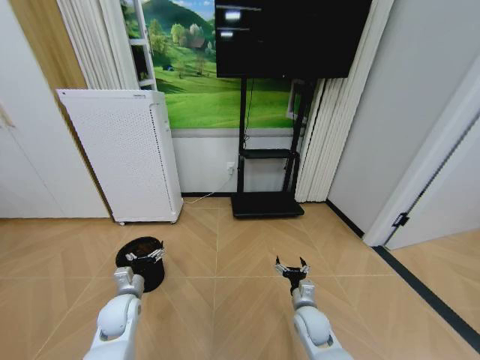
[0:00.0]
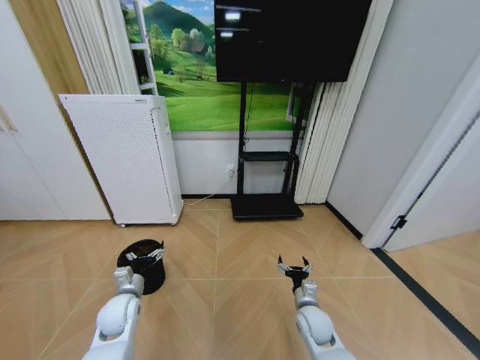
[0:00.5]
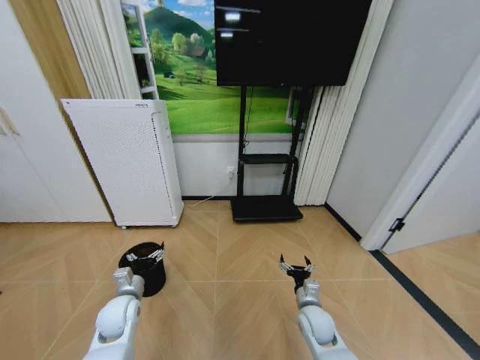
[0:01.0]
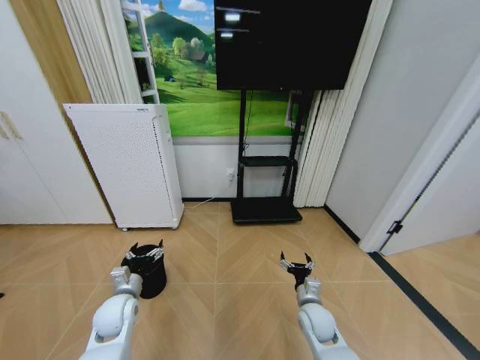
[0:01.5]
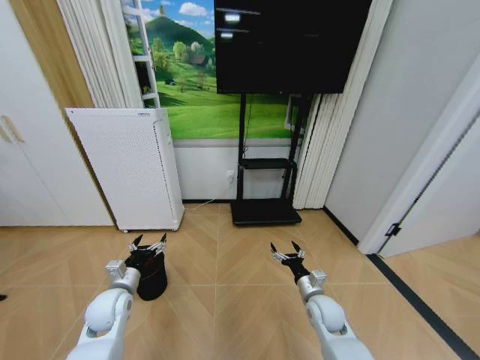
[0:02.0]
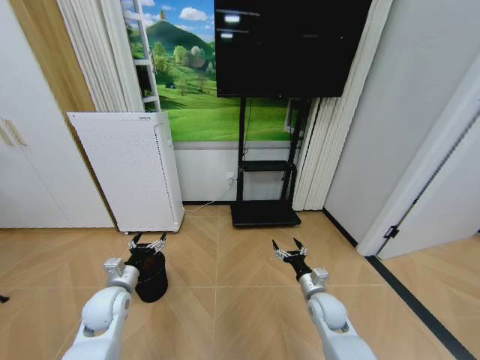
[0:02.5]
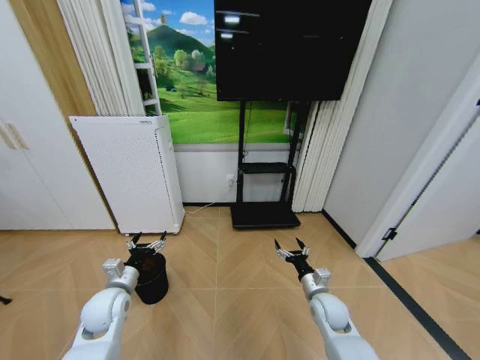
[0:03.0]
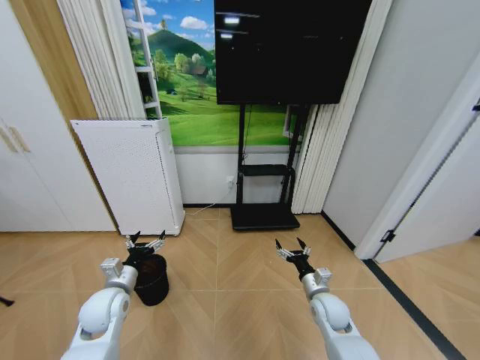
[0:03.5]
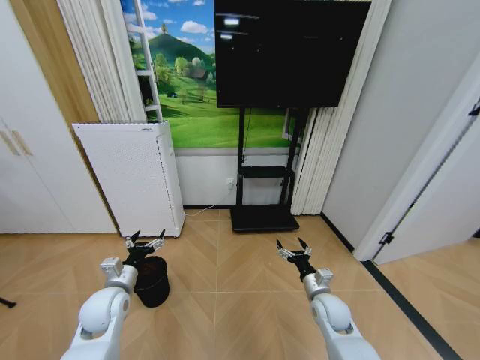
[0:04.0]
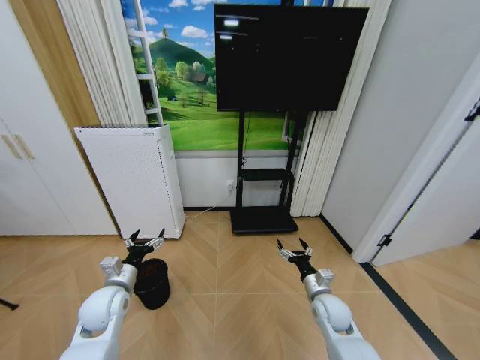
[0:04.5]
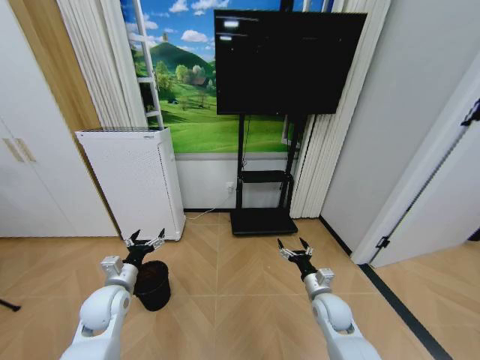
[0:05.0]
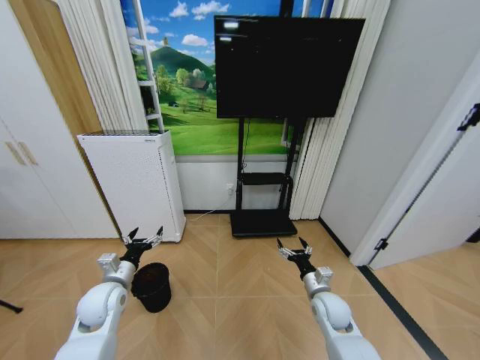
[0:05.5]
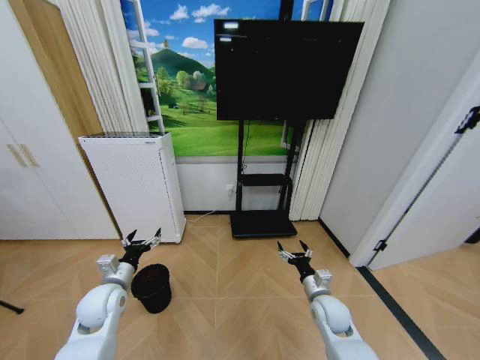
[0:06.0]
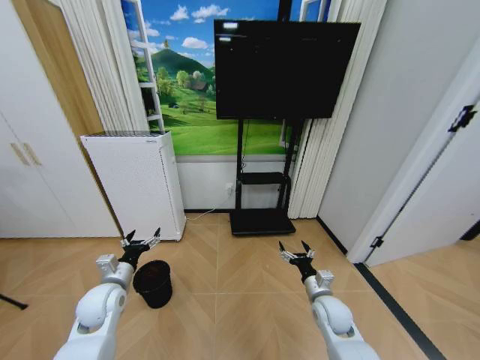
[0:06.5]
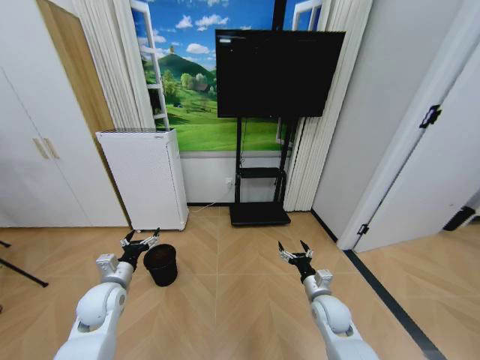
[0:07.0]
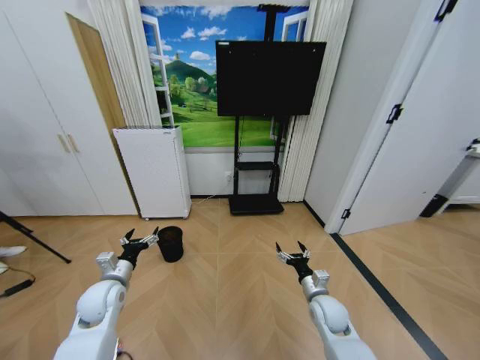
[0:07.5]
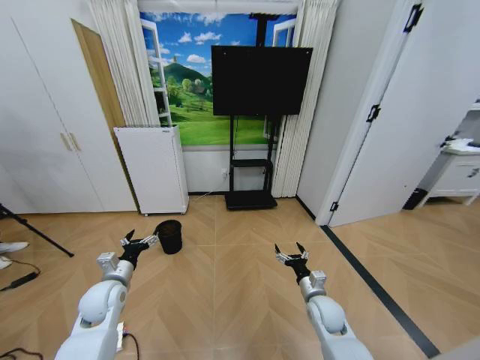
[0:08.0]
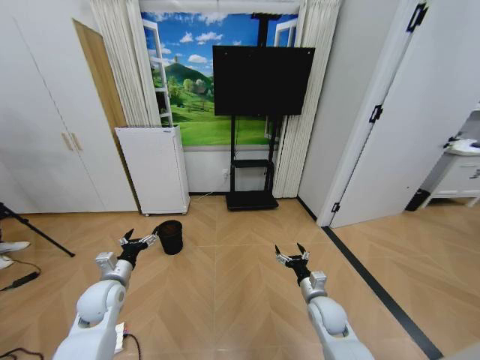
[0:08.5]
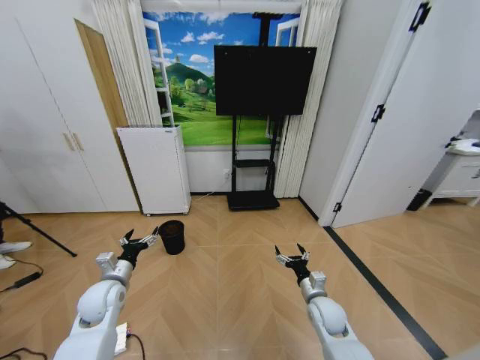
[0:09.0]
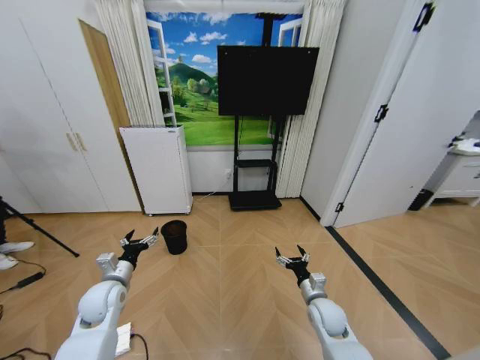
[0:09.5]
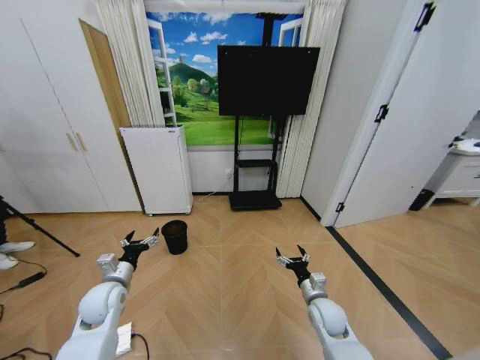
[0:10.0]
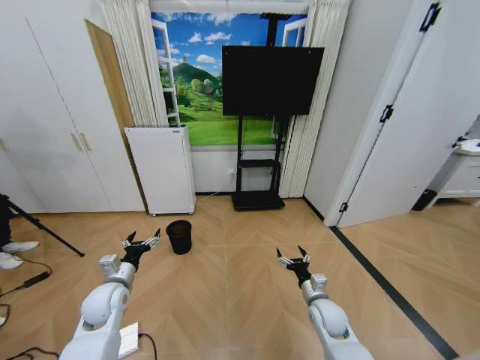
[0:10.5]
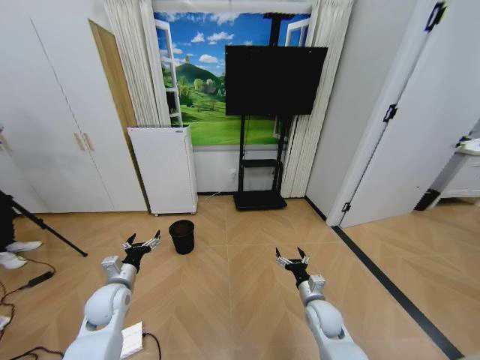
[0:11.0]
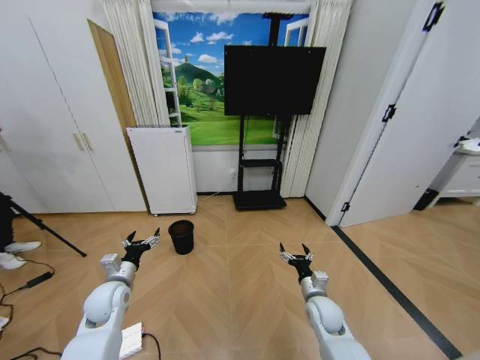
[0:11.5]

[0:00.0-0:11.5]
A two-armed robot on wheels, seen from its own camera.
Task of the whole recording: Pick up the trash bin and place the garbage on the floor into it.
0:00.0 to 0:02.0: The right gripper ends up about 5 cm from where it was.
0:02.0 to 0:06.0: There are only small adjustments of the grippers.
0:07.5 to 0:09.5: Neither gripper changes place.
0:09.5 to 0:11.5: There are only small adjustments of the grippers.
